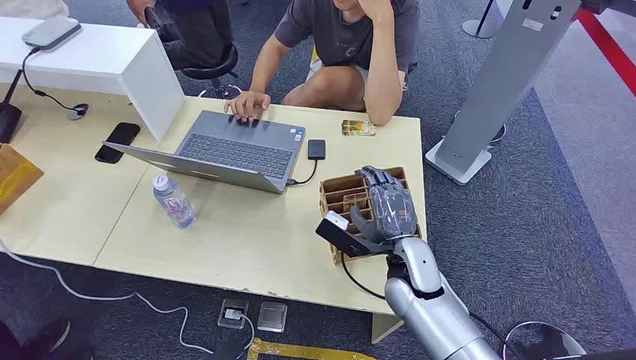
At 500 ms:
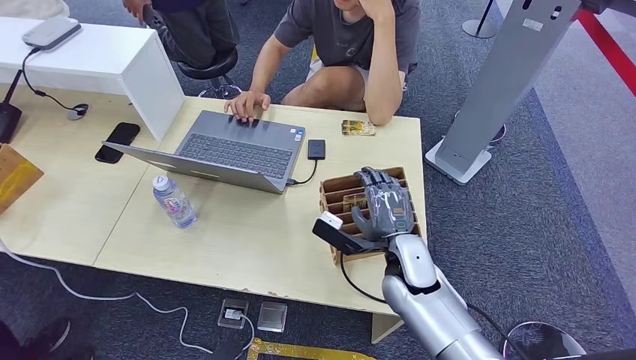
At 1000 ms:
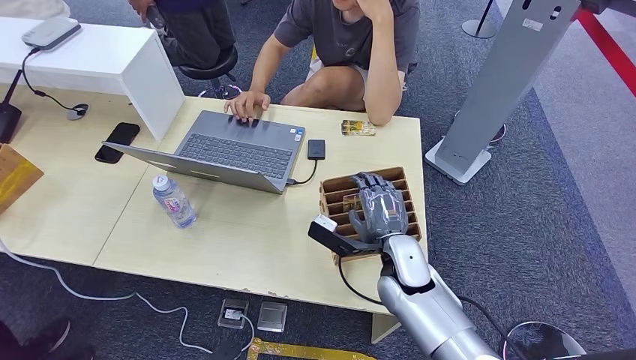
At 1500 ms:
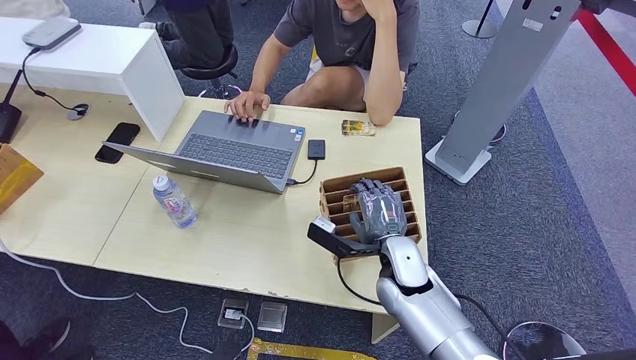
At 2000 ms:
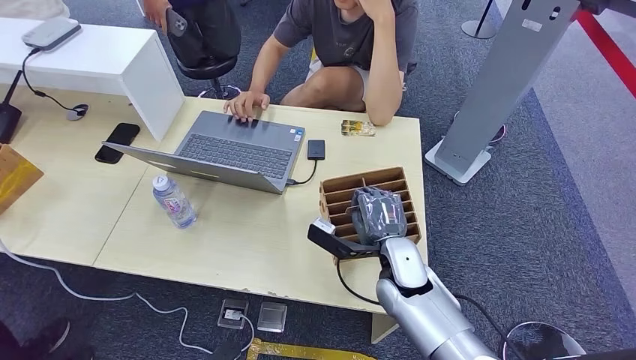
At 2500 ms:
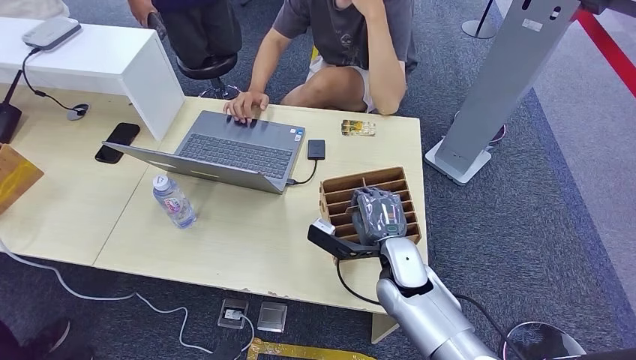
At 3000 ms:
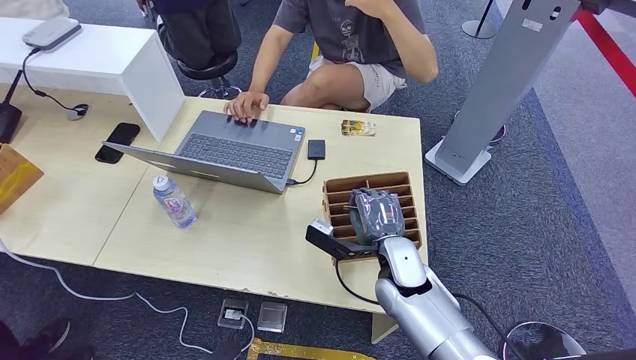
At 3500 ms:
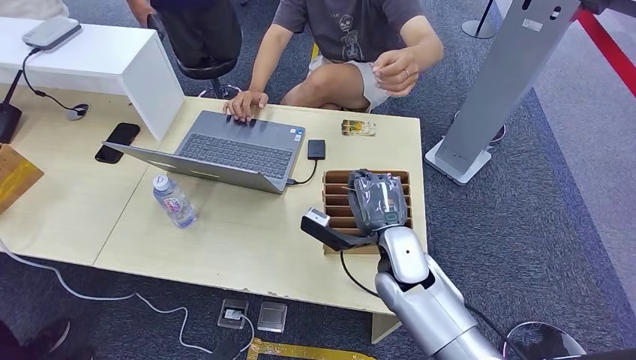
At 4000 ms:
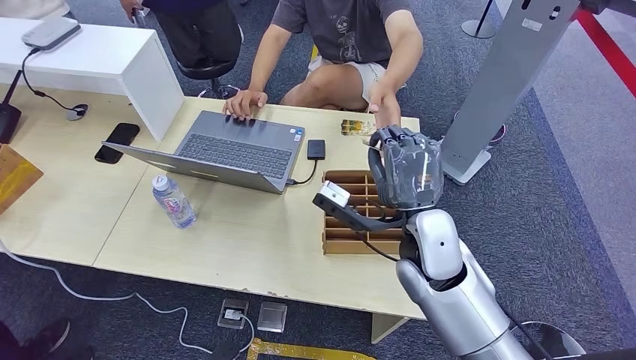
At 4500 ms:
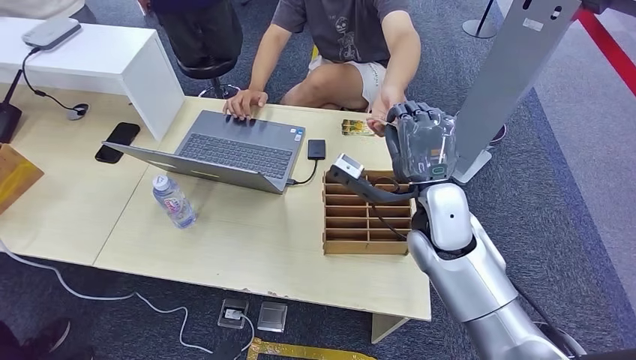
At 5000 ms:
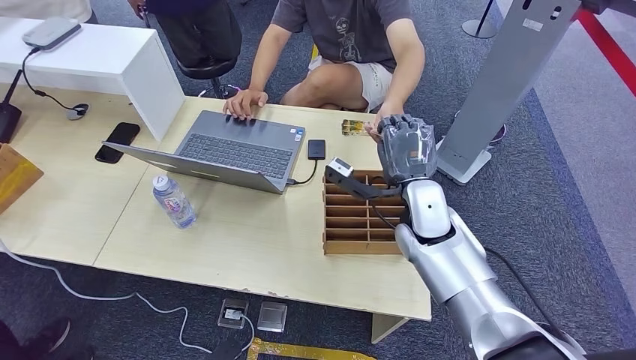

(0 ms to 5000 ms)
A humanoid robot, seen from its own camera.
Step, 0 ms - 3500 ms: Pick up the room card from the card holder.
Step, 4000 ms - 5000 ms: Hand the room card to the target.
2500 ms - 5000 ms: The right hand heads upward and forward, covering roughly 10 cm.
